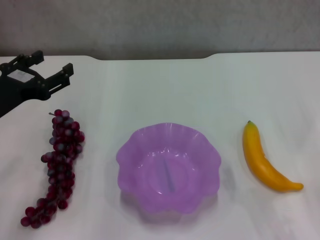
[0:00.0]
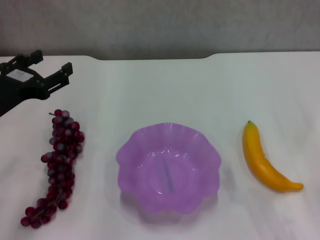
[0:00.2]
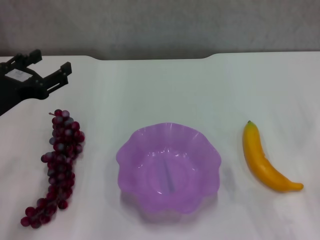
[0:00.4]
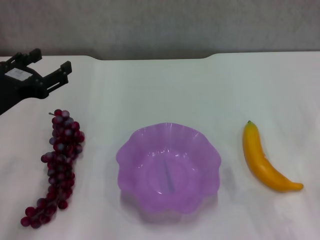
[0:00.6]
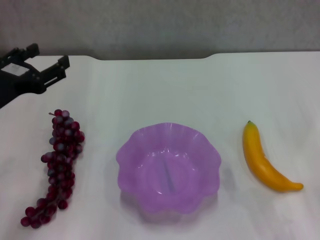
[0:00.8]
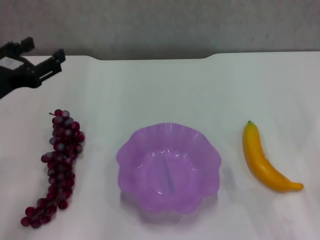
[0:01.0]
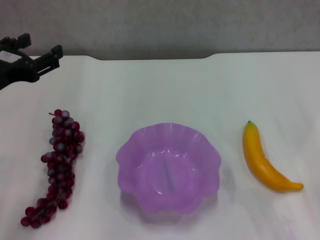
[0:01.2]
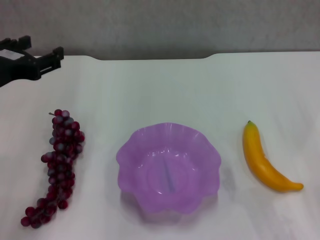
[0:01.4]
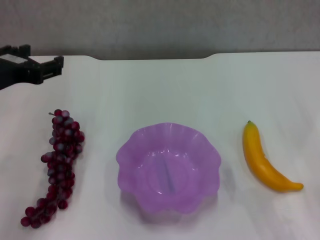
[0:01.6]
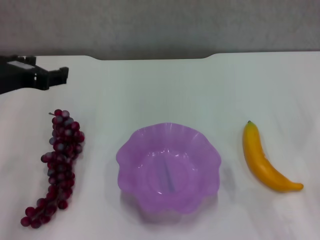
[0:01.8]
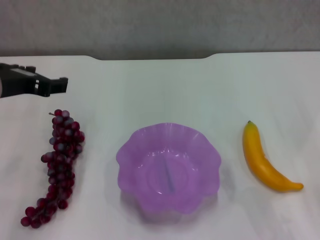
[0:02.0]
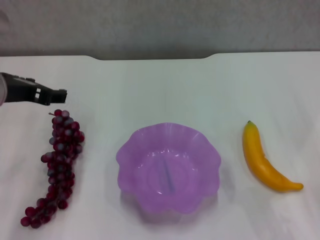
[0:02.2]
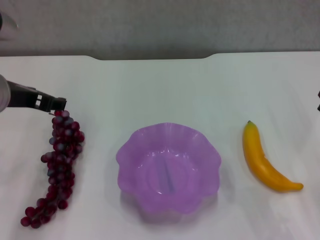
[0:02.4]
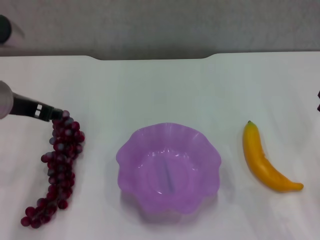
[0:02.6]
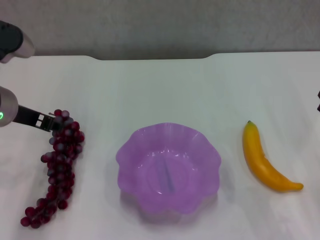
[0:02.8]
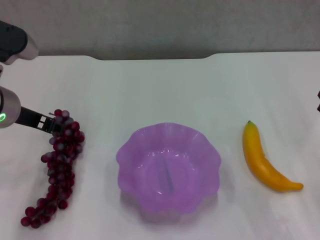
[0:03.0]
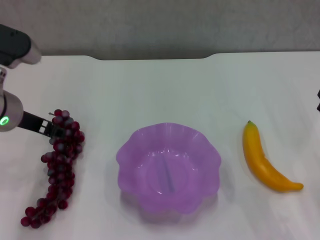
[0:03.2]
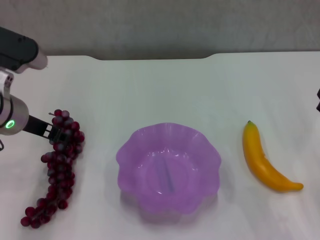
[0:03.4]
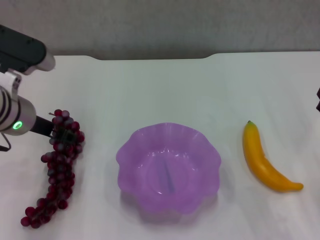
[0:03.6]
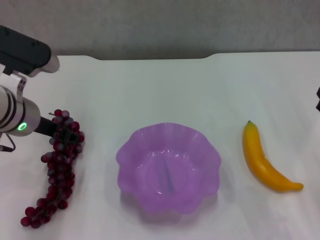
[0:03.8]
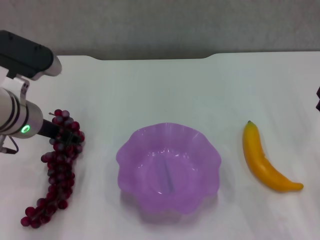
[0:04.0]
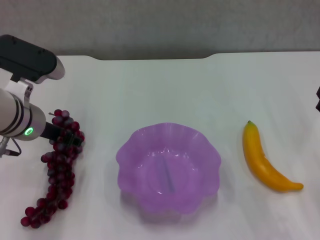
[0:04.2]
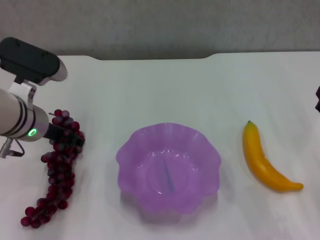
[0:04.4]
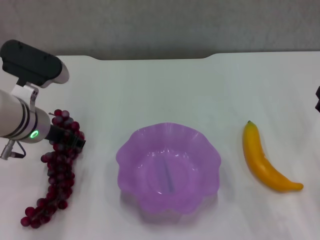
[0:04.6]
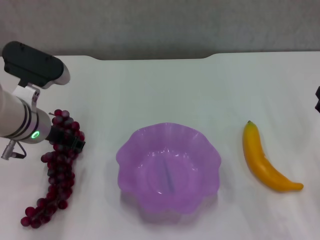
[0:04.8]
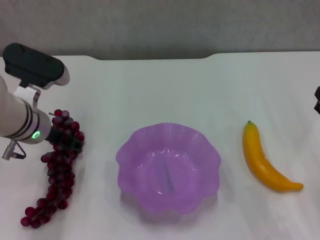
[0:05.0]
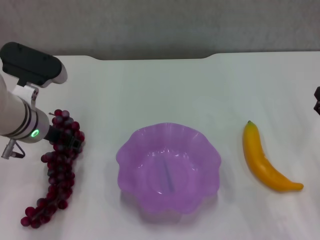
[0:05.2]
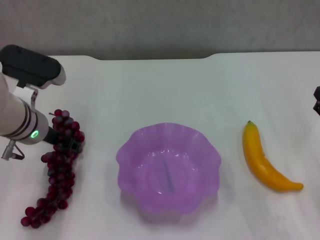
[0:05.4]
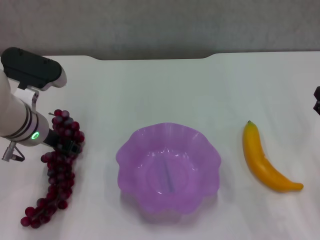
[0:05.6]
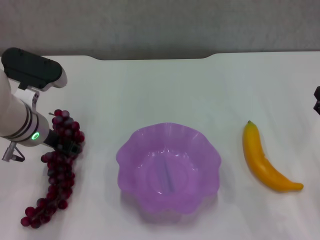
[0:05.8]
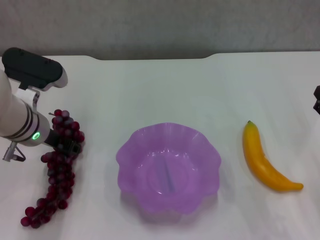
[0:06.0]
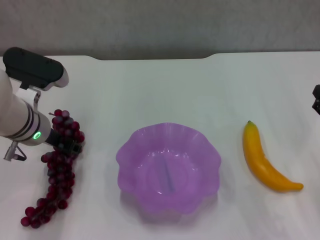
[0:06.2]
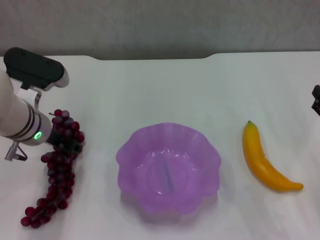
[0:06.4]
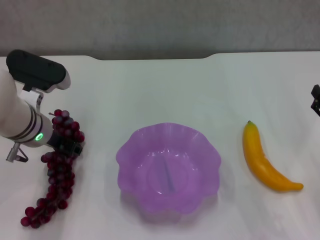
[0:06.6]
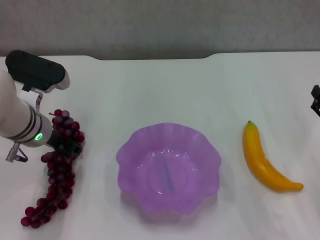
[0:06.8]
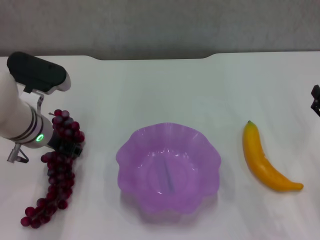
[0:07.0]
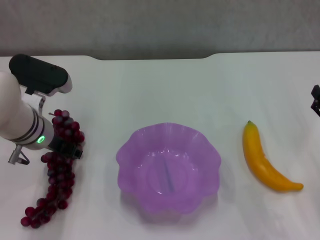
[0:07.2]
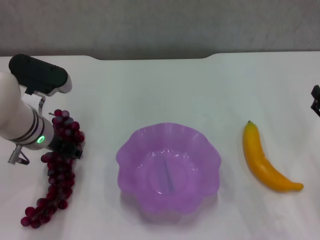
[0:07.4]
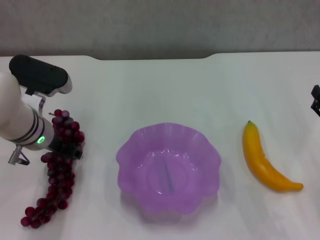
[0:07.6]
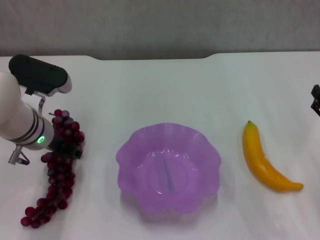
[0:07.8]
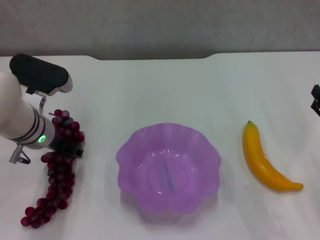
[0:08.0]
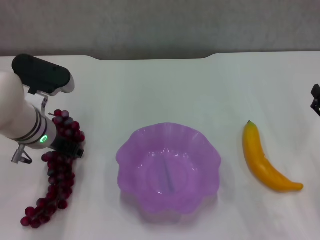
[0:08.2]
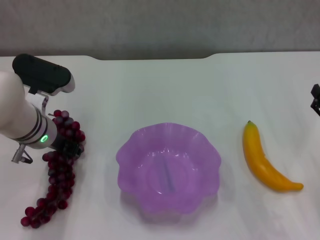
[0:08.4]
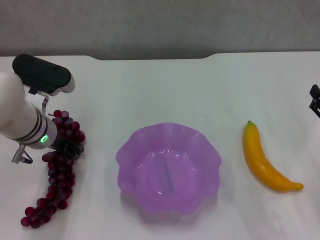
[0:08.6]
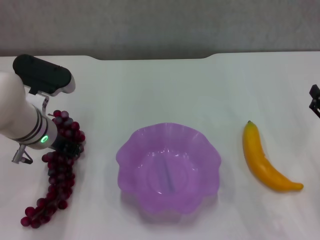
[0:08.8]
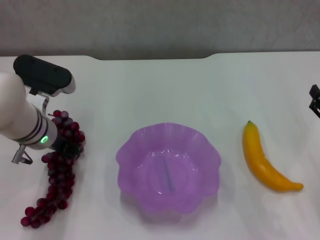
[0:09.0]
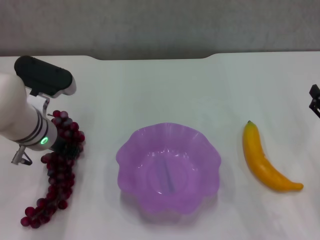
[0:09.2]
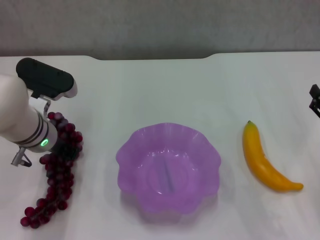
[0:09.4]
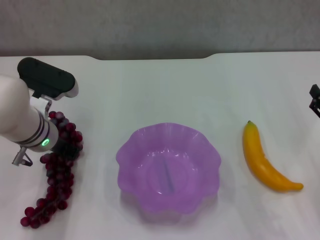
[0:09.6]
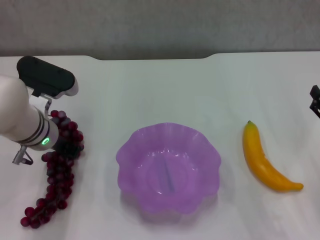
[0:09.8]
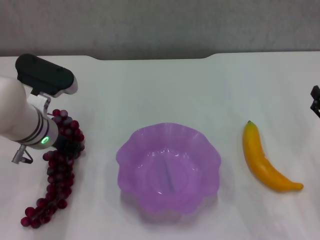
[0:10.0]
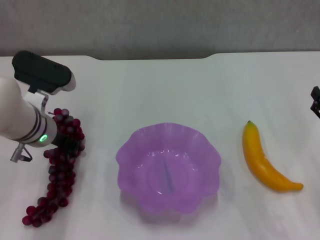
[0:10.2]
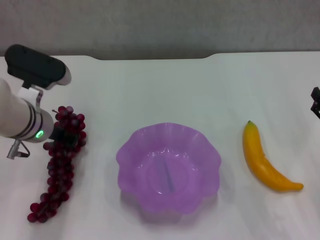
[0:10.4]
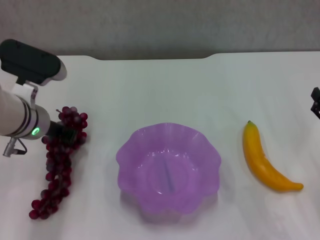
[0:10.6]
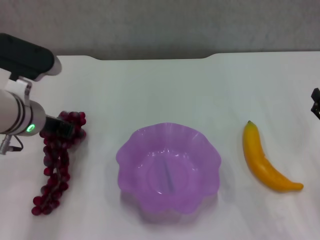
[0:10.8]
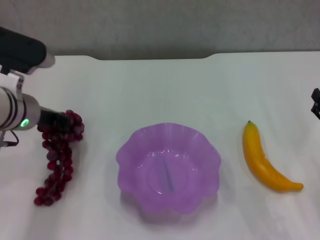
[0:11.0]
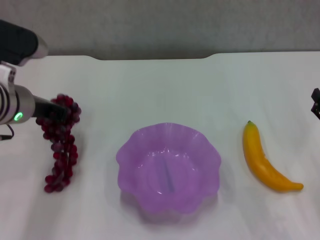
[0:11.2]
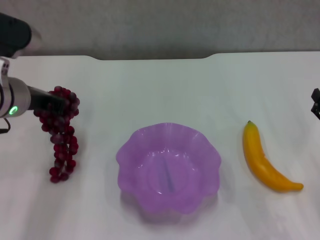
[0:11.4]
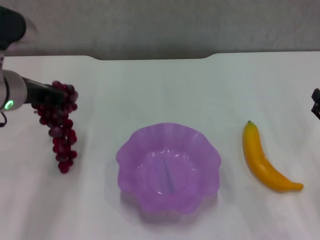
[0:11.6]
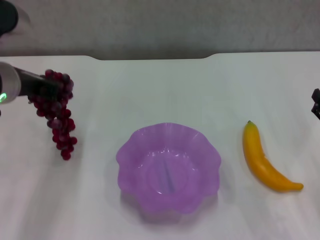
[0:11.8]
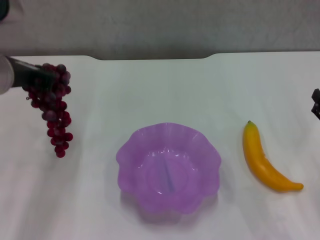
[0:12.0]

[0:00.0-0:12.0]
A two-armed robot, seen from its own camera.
Step, 0:00.0 to 0:09.2: Grasp the grape with left gripper.
0:00.0 to 0:01.6: The left gripper travels upward by some 5 cm.
0:01.6 to 0:03.0: The left gripper shifts by about 5 cm.
0:03.0 to 0:04.4: The left gripper ends up approximately 5 cm from where it was.
0:04.4 to 0:07.6: There are only small adjustments of the grippers.
0:07.6 to 0:09.0: The left gripper closes up.
0:09.0 to 0:10.4: The grippers stay close to where they were, moving slightly.
0:10.4 to 0:12.0: The left gripper goes approximately 10 cm upward.

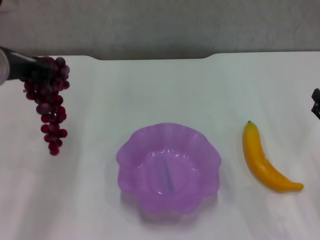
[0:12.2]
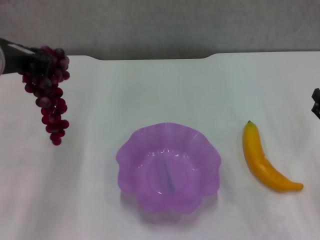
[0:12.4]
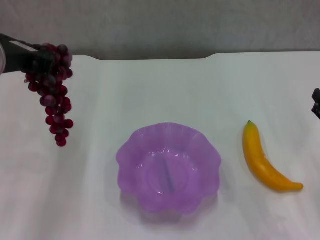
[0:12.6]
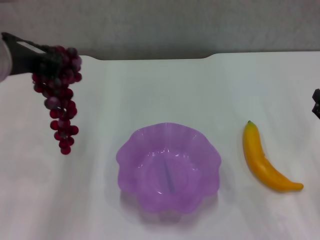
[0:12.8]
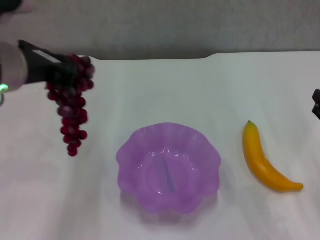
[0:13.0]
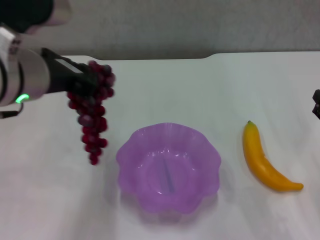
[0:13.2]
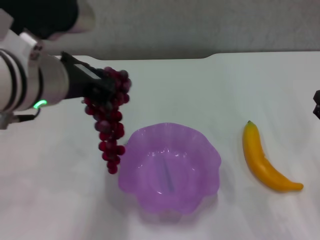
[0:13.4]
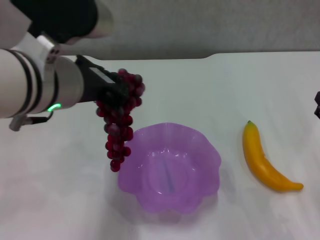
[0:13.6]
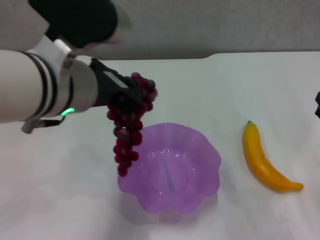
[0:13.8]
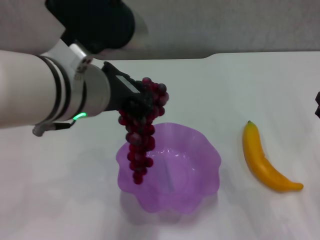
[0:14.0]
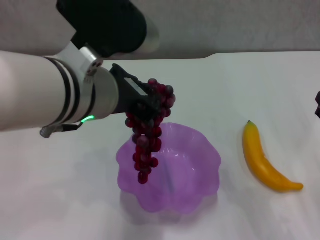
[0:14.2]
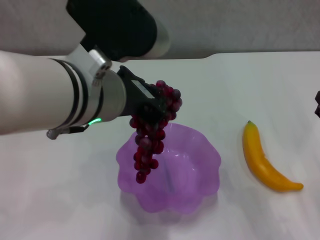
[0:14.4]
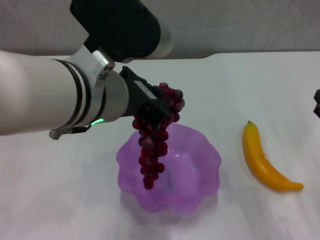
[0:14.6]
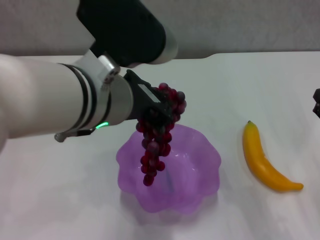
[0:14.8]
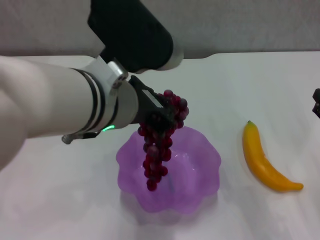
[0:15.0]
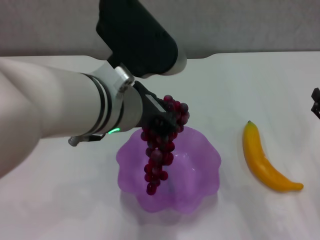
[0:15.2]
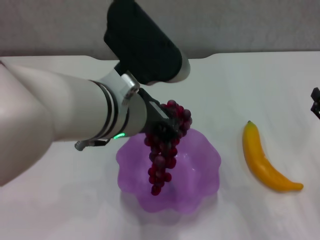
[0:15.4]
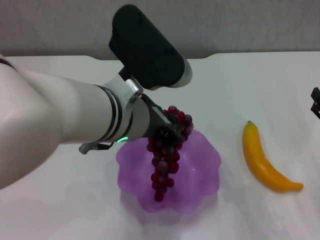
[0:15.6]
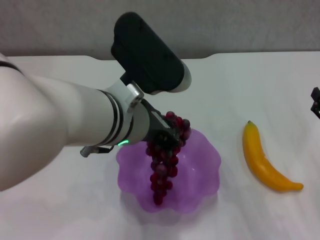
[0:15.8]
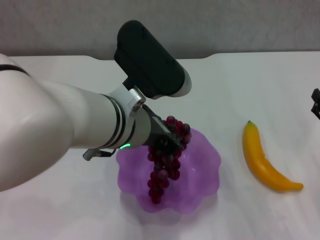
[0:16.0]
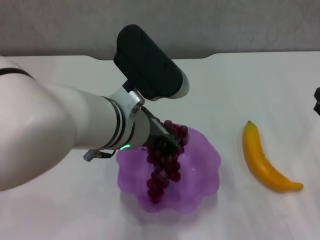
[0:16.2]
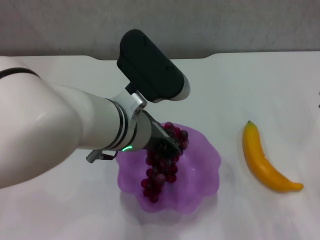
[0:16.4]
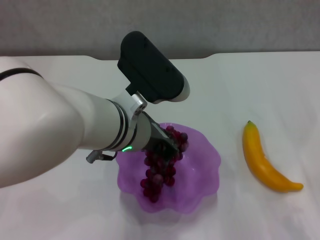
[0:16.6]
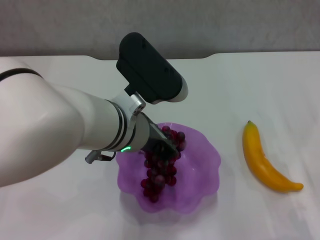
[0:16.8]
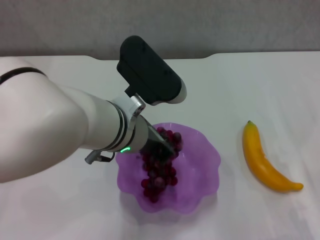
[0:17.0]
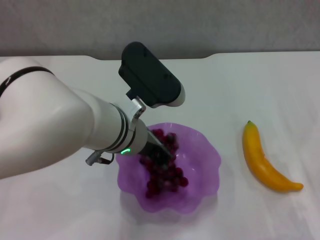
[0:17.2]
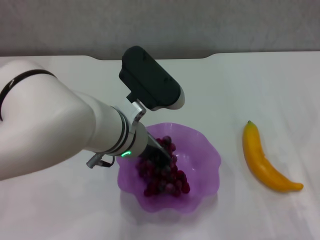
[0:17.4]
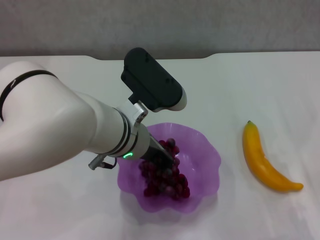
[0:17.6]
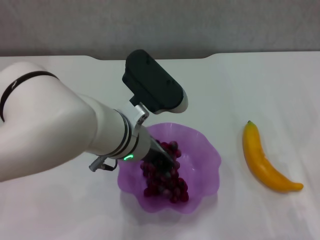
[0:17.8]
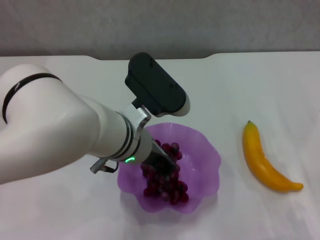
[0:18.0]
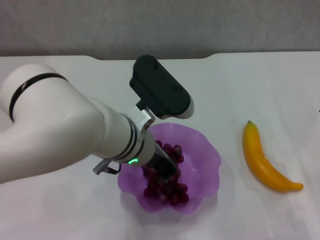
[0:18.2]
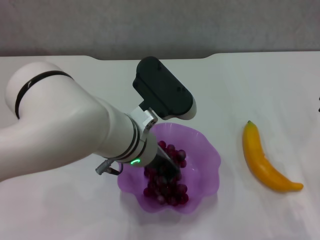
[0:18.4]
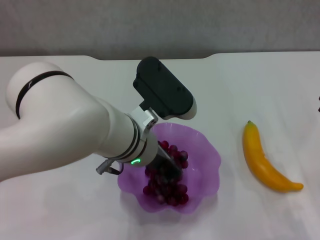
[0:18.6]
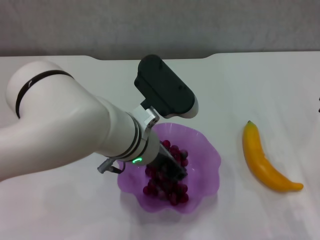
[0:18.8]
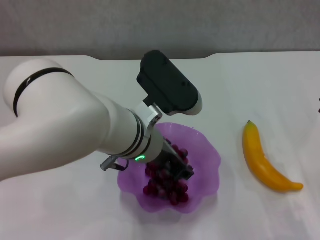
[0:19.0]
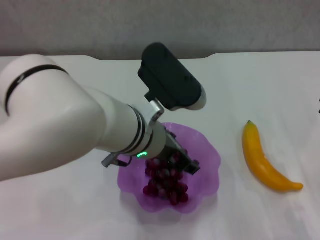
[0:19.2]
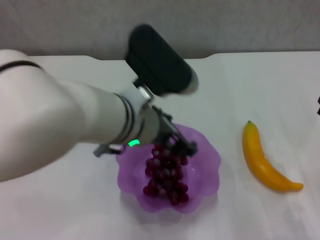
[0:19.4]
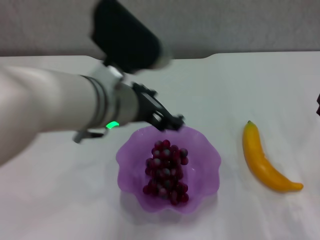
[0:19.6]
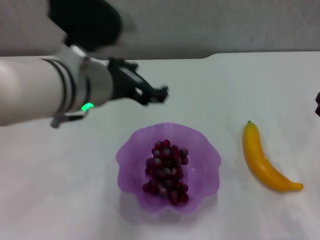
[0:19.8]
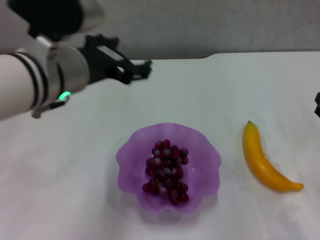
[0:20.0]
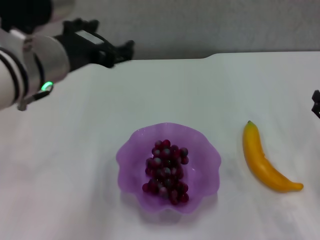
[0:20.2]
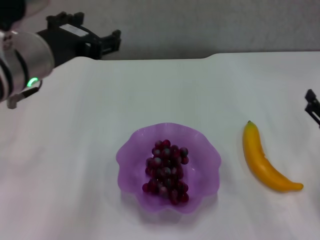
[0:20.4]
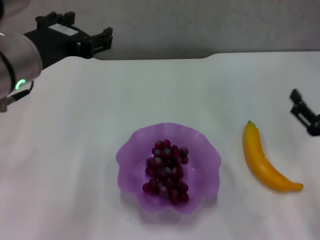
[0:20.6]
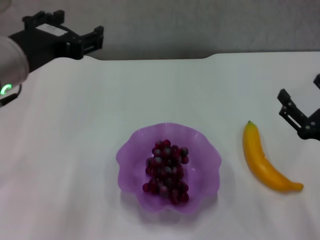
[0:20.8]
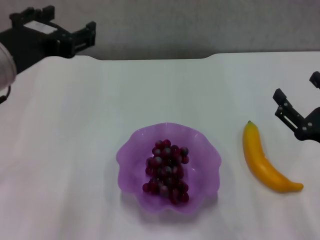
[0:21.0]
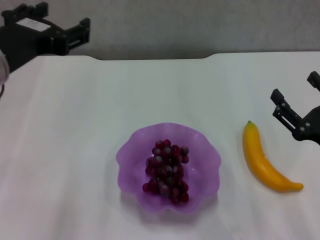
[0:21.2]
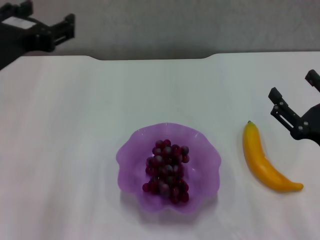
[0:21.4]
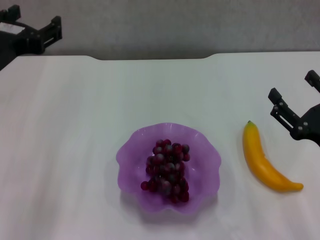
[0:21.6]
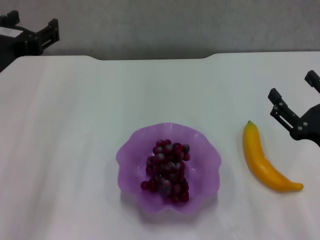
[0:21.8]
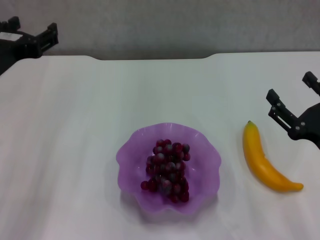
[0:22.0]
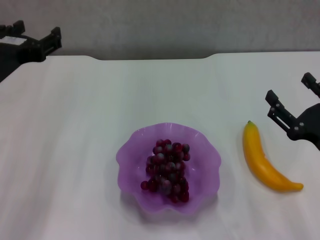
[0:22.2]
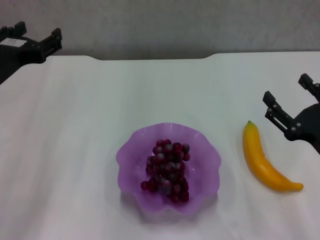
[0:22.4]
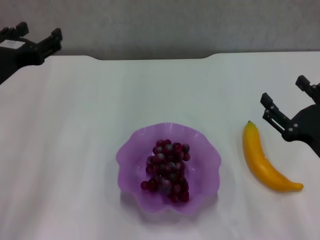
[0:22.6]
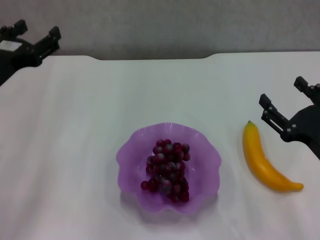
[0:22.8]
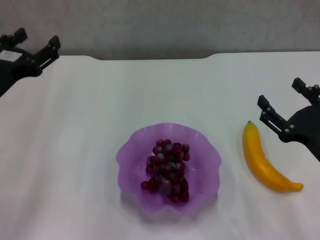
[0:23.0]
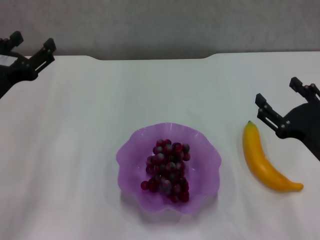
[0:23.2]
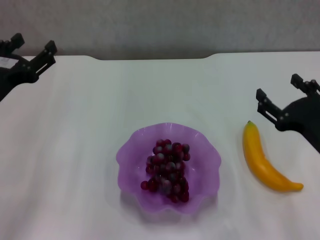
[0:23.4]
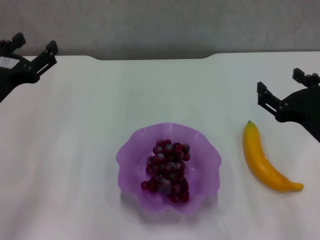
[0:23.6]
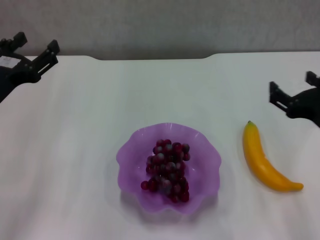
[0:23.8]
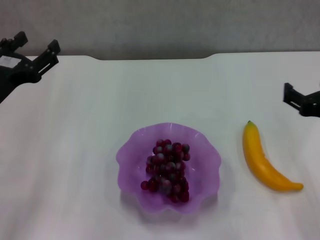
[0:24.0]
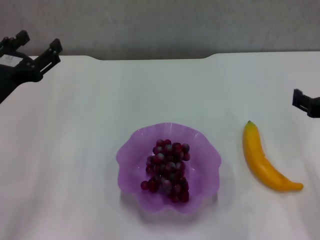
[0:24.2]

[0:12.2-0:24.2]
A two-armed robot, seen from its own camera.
Step, 0:12.2 to 0:19.4: Place the grape in the purple plate with left gripper.
0:12.2 to 0:13.8: The left gripper shifts some 10 cm to the right and backward.
0:15.2 to 0:16.6: The left gripper moves downward, some 5 cm.
0:16.6 to 0:18.2: The grippers move only a little.
0:18.2 to 0:19.8: The left gripper travels upward and to the left by roughly 10 cm, and opens up.
0:19.8 to 0:21.2: The grippers both shift to the left by roughly 10 cm.
0:21.2 to 0:22.6: The left gripper heads downward, to the left and forward, covering roughly 10 cm.
0:22.6 to 0:24.2: The right gripper travels upward by approximately 5 cm.
